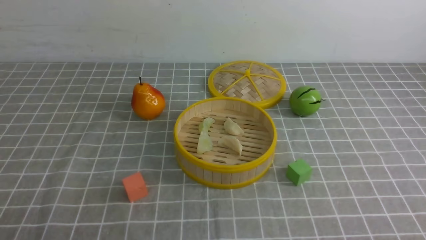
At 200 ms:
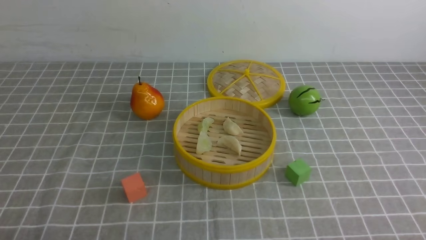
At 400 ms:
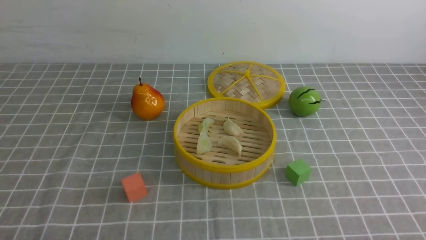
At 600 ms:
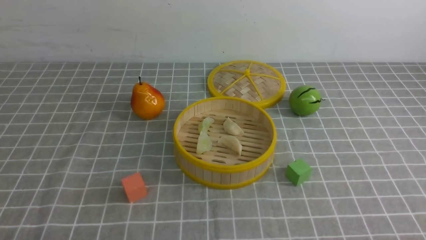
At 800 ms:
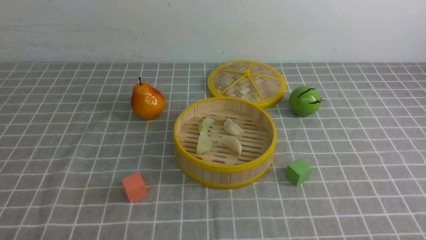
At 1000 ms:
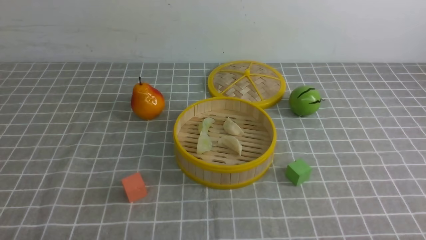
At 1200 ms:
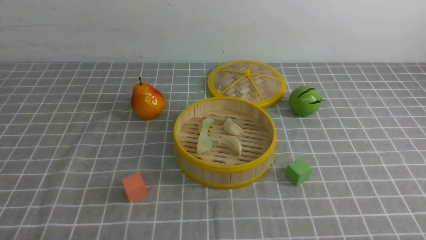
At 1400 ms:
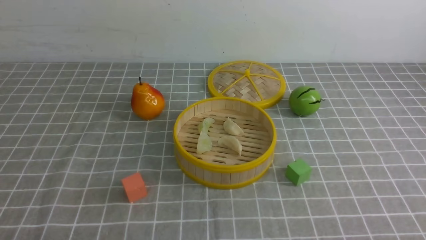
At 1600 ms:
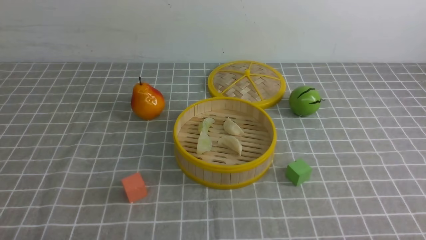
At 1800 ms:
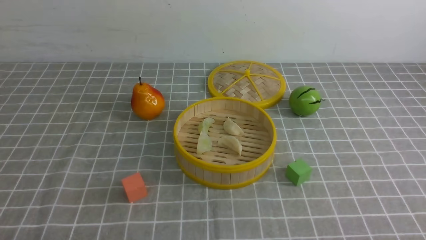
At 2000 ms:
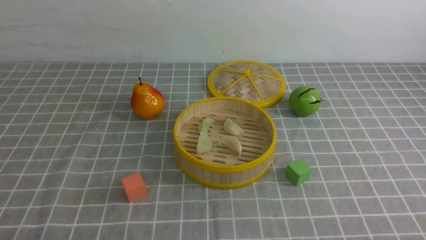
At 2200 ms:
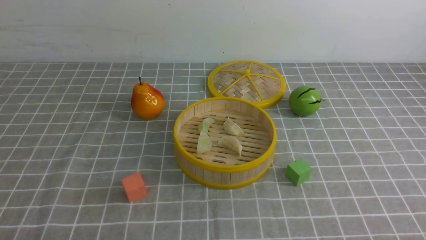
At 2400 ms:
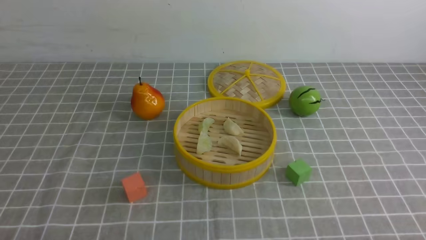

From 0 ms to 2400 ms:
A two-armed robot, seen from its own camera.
Task of the whole recording: put the dumplings into the steamer on the table with the grey tablecloth.
From 1200 ms to 2400 ms: The two grippers keep their place.
